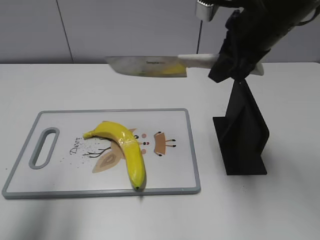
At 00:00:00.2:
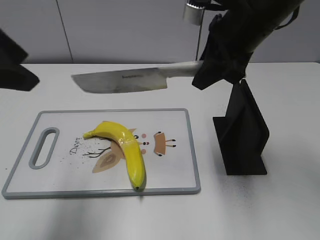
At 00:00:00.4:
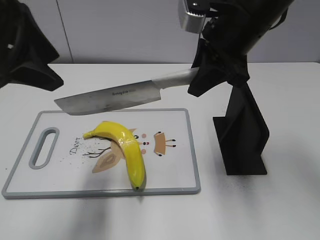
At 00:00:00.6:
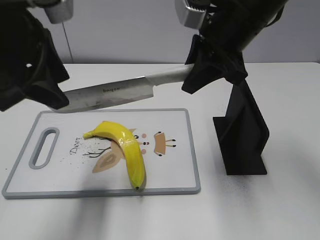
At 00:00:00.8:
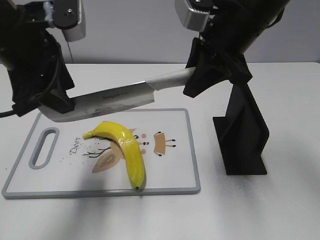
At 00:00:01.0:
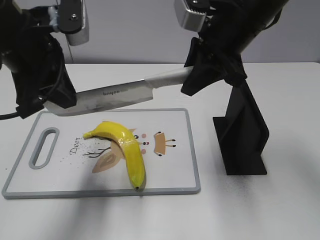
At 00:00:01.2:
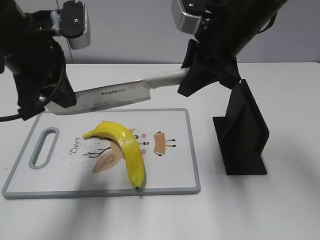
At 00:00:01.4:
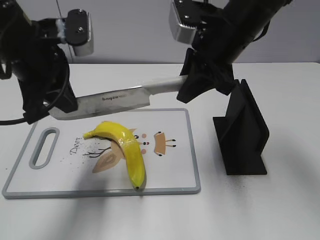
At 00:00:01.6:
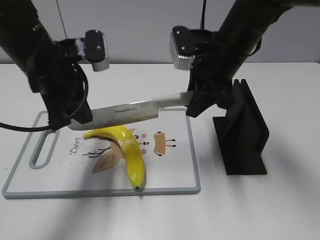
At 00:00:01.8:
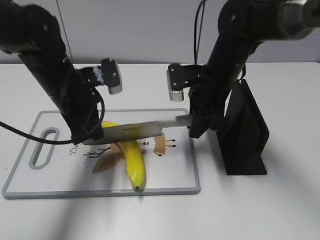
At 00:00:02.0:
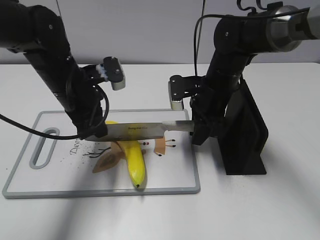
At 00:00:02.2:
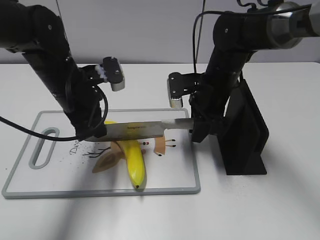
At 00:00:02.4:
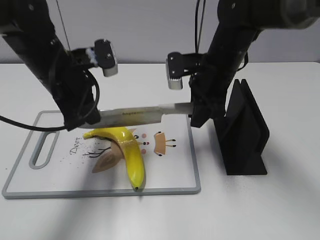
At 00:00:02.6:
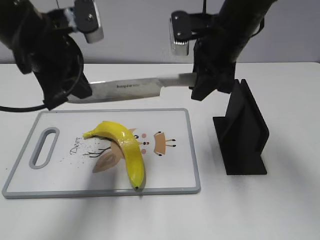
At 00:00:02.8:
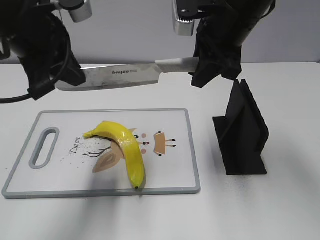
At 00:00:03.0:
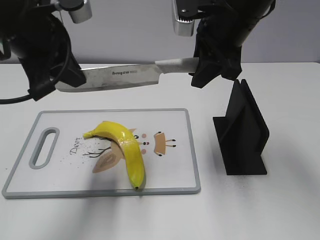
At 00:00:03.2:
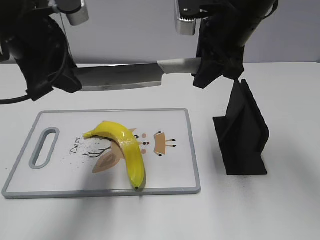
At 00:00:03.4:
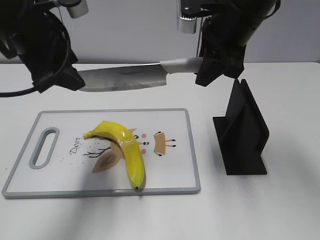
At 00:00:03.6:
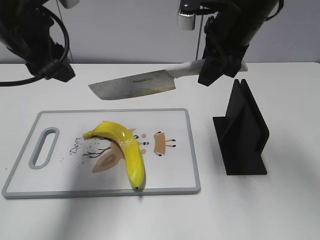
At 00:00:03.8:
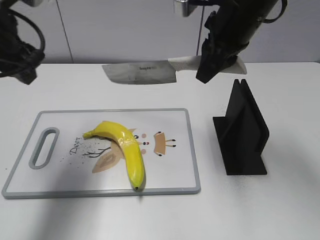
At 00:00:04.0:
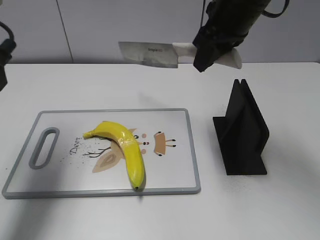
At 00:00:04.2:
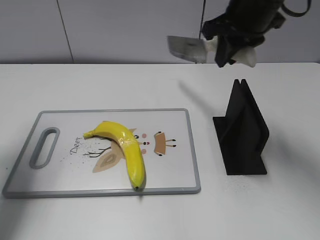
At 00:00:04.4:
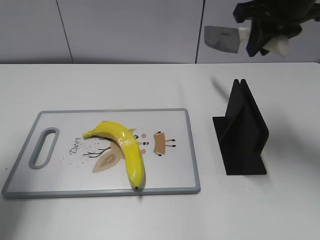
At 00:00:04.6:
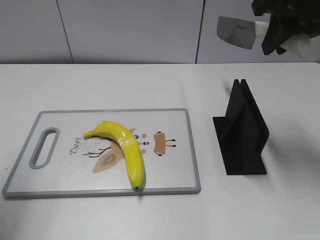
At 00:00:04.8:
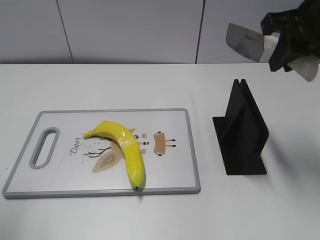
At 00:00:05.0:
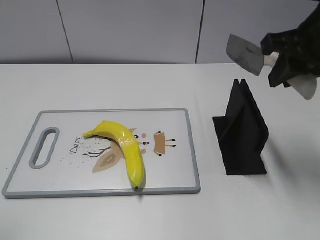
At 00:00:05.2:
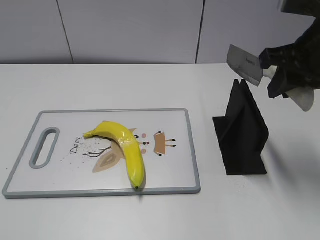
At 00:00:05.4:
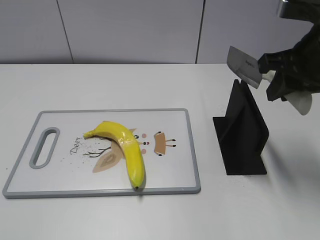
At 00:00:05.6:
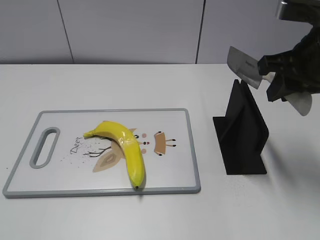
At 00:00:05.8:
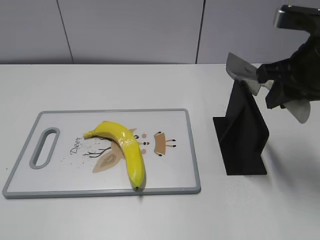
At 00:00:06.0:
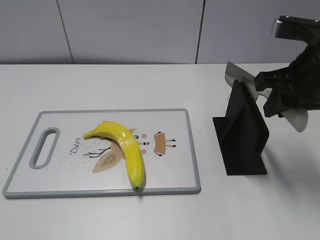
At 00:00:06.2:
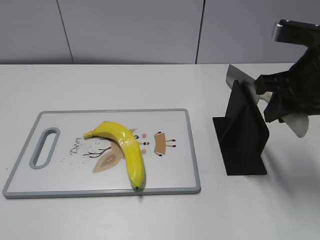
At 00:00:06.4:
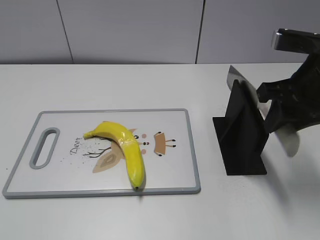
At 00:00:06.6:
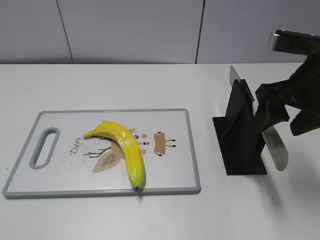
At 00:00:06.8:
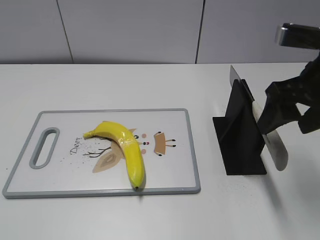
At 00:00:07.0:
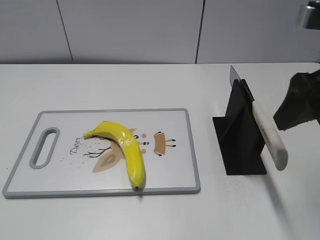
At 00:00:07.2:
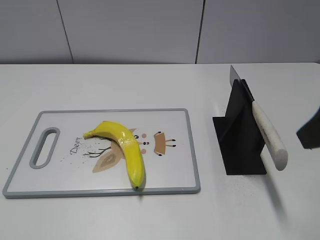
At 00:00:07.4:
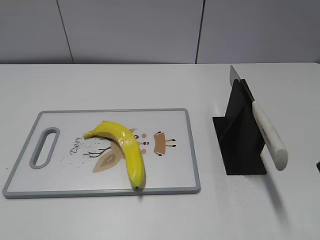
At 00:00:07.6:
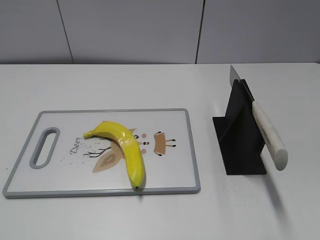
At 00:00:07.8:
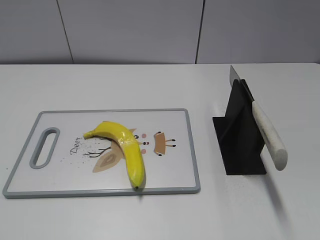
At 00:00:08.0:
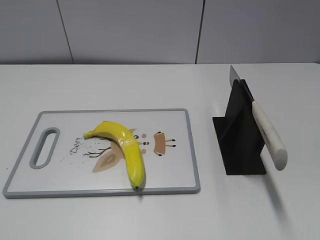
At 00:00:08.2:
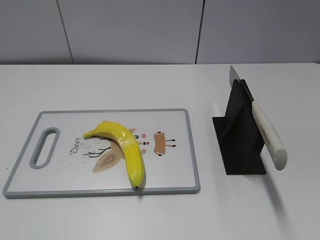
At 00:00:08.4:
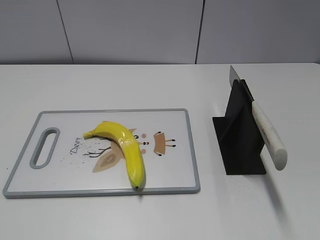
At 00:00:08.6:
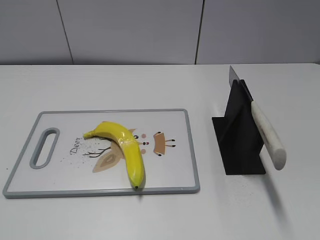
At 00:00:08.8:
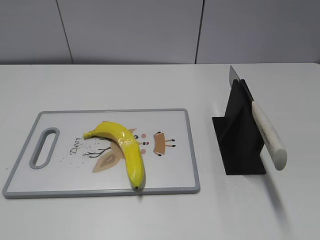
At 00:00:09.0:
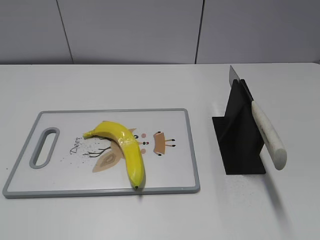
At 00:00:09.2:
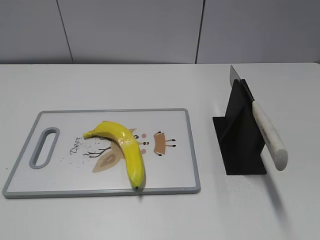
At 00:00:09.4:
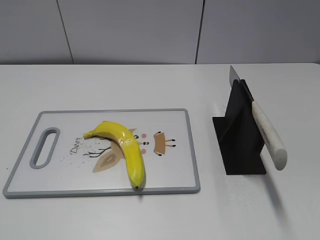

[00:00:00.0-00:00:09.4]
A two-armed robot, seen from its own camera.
Task of the whole recording: cut plastic banana.
Step, 00:00:00.0 to 00:00:03.0: Lift the knife with your right hand.
Step, 00:00:03.2 to 00:00:04.0: Cut the banana with your right hand.
Step, 00:00:04.4 to 00:00:05.0: Lift the knife with your right hand.
Step, 00:00:05.2 to 00:00:09.4: Place the knife on the storage rack with your right hand.
00:00:00.0 to 00:00:01.6: The right gripper heads downward, covering roughly 10 cm. The left gripper travels forward, downward and to the right by about 20 cm, and closes.
00:00:01.6 to 00:00:03.2: Both grippers travel together upward, approximately 5 cm. The left gripper opens up.
00:00:03.2 to 00:00:04.8: The left gripper travels to the left and backward by about 20 cm. The right gripper travels to the right and backward by about 10 cm.
00:00:04.8 to 00:00:06.2: The right gripper goes about 5 cm downward, while the left gripper travels backward and downward by some 15 cm.
00:00:06.2 to 00:00:07.8: The right gripper heads backward, covering some 20 cm, and opens up.

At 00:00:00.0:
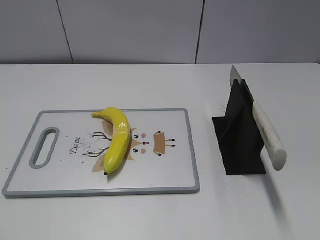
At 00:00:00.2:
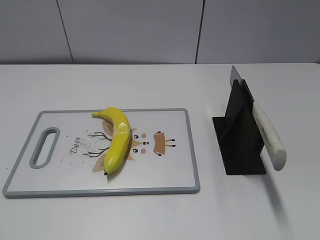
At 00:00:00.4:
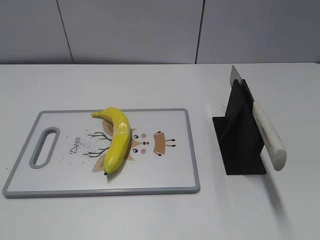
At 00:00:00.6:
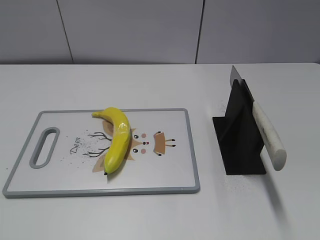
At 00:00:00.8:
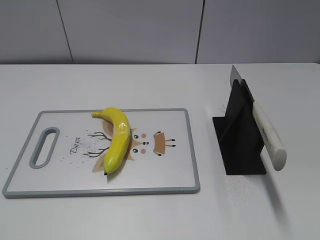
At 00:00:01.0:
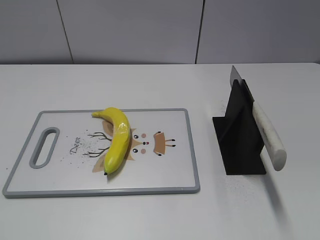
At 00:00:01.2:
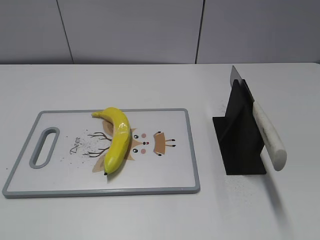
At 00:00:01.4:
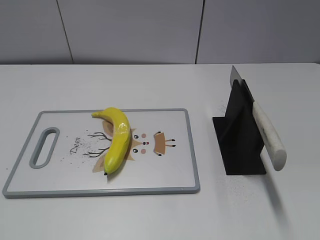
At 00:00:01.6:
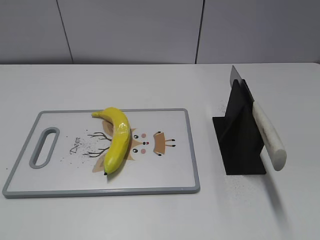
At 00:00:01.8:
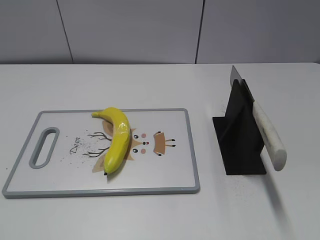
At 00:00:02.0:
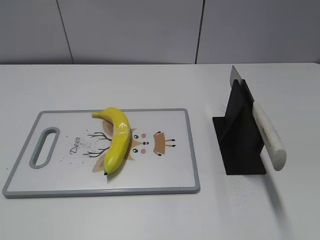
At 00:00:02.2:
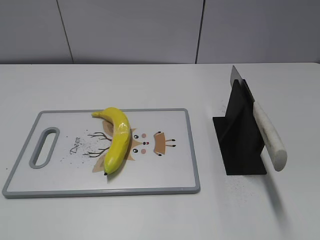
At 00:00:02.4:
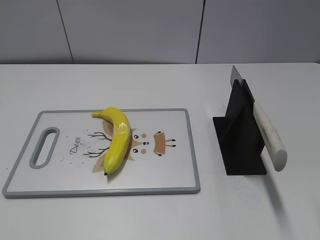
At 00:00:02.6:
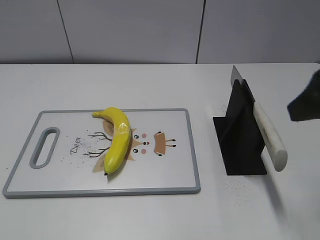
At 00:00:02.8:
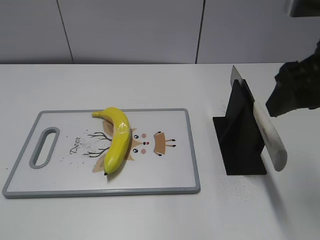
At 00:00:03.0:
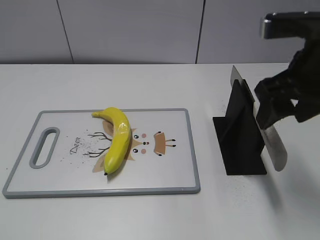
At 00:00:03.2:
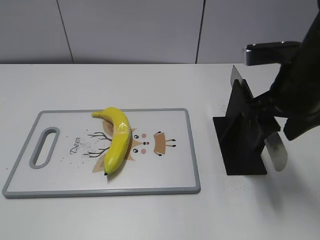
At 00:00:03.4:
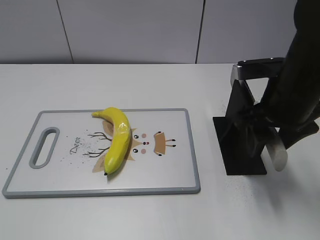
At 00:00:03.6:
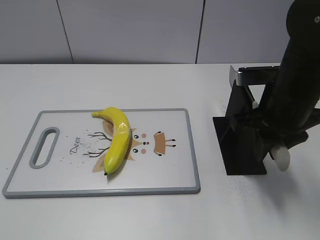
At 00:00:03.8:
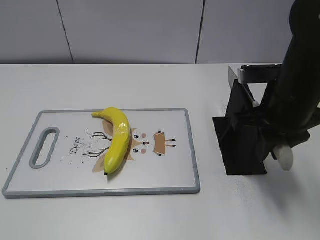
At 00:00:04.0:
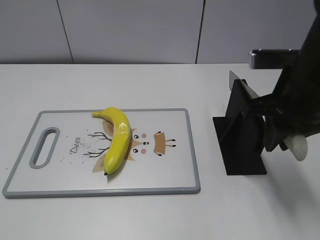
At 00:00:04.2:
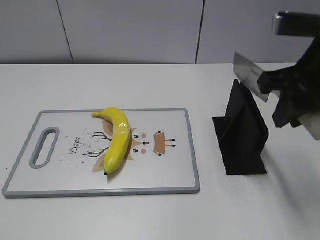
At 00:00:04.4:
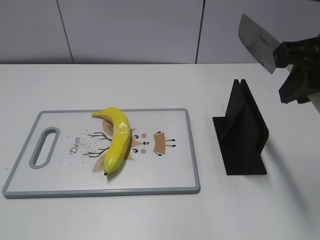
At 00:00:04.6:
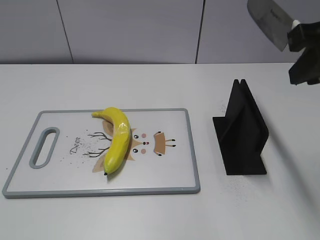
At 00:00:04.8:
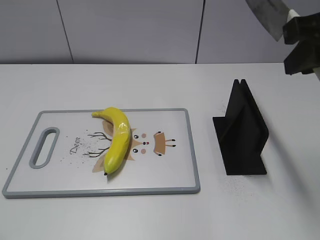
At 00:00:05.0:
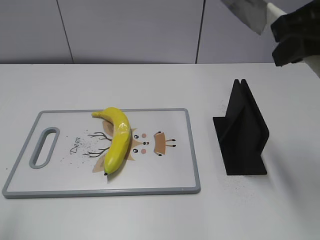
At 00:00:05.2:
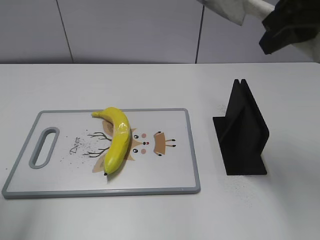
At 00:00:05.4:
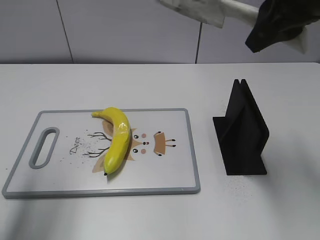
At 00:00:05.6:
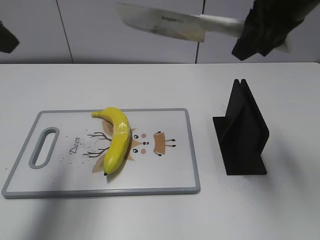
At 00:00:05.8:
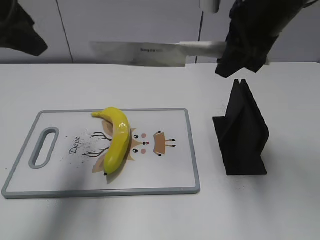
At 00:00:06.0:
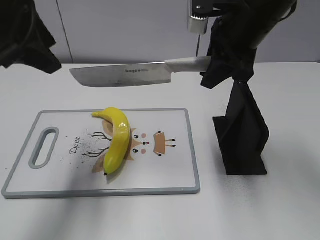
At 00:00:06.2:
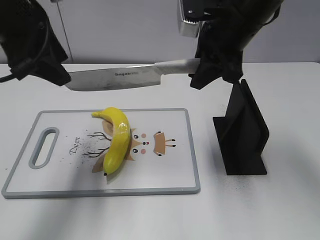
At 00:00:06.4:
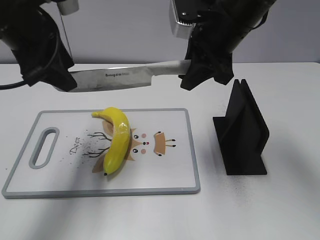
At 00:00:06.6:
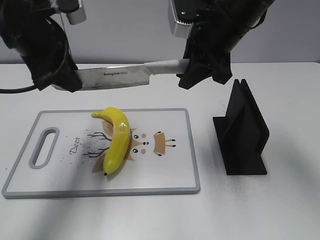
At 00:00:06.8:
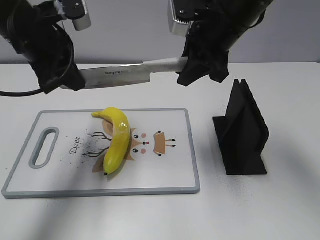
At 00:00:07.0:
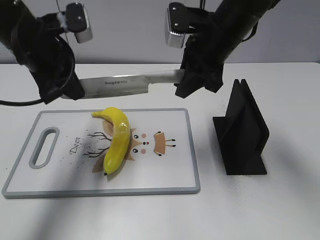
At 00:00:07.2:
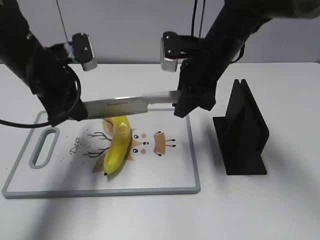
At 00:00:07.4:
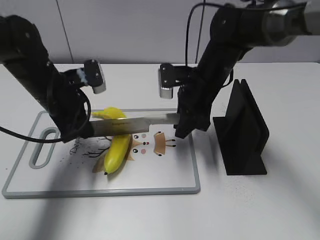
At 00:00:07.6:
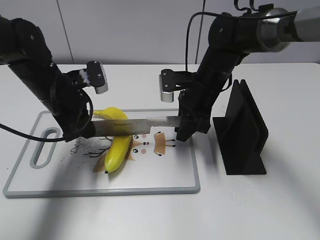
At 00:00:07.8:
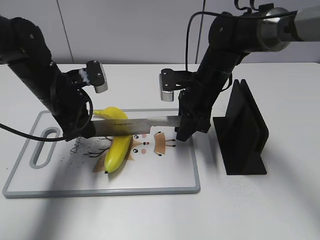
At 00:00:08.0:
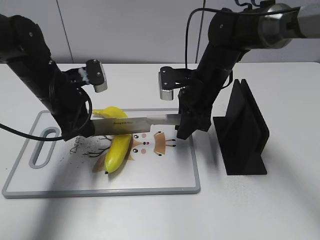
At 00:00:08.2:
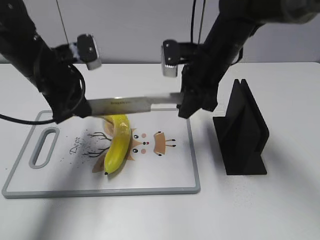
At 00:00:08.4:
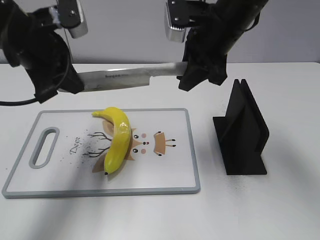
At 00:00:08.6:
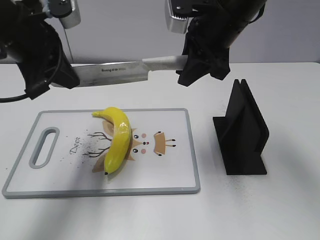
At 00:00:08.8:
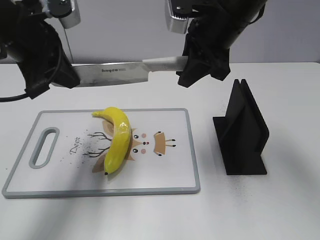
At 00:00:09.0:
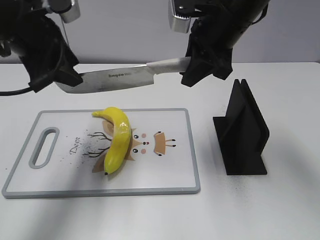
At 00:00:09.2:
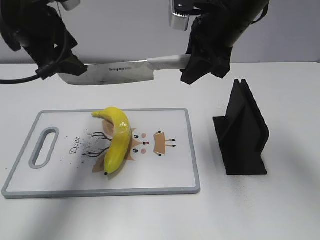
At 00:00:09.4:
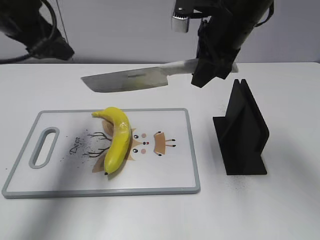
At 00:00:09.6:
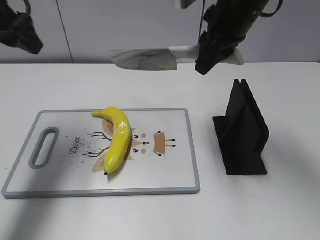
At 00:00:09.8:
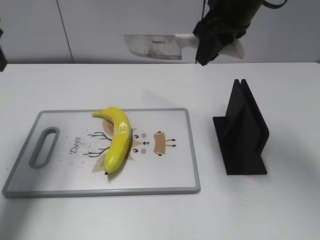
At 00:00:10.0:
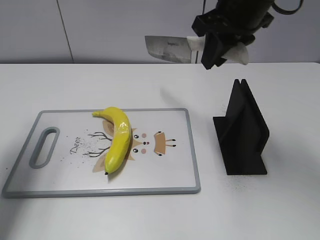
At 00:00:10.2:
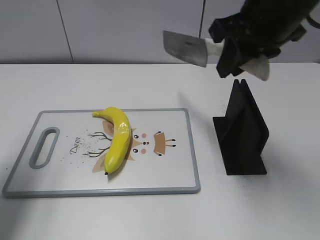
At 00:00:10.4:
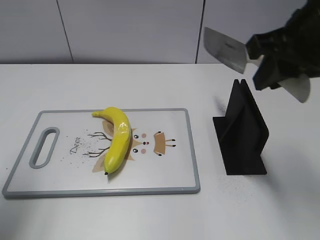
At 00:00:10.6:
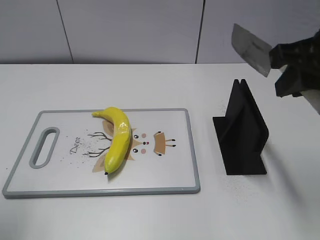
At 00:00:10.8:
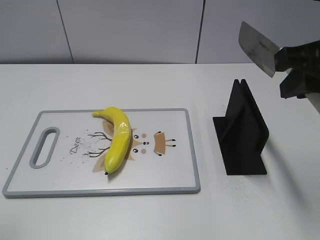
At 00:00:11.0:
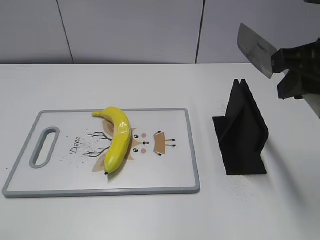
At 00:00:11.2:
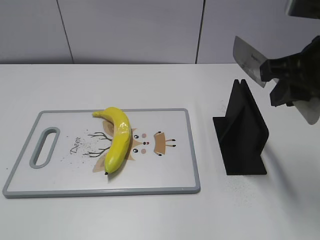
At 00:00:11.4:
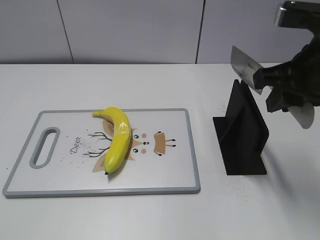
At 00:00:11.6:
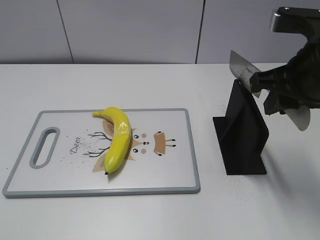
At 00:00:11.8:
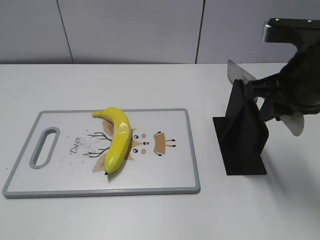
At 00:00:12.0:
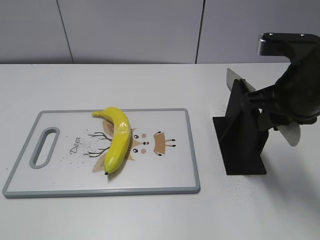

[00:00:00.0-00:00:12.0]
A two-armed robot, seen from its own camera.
Task of the whole recording: cut plastic banana.
Step, 00:00:00.0 to 00:00:04.4: Grab the knife handle with your right hand.
Step, 00:00:04.6 to 00:00:08.2: Lift the knife with your right hand.
Step, 00:00:08.6 to 00:00:09.2: Cut the banana with your right hand.
Step, 00:00:09.4 to 00:00:10.2: Lift the knife with your right hand.
00:00:01.6 to 00:00:03.0: The right gripper moves forward and to the left, some 25 cm.
00:00:03.0 to 00:00:04.4: The right gripper closes its fingers.
00:00:04.4 to 00:00:06.0: The right gripper goes roughly 15 cm forward and to the left; the left gripper shifts approximately 30 cm forward.
00:00:06.0 to 00:00:07.6: Both grippers move downward, some 20 cm. The left gripper closes up.
00:00:07.6 to 00:00:09.0: Both grippers move upward, approximately 15 cm. The left gripper opens.
00:00:09.0 to 00:00:10.4: The left gripper shifts about 15 cm to the left and backward, while the right gripper moves backward and to the right, some 10 cm.
00:00:10.4 to 00:00:12.0: The right gripper goes about 10 cm downward. The left gripper is displaced backward by roughly 25 cm.
